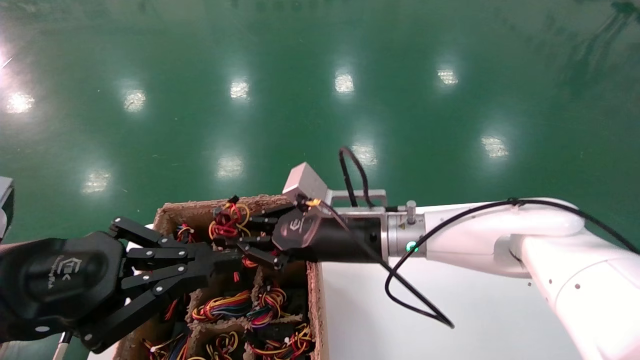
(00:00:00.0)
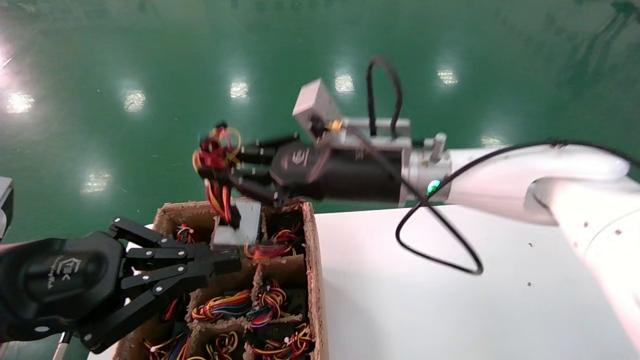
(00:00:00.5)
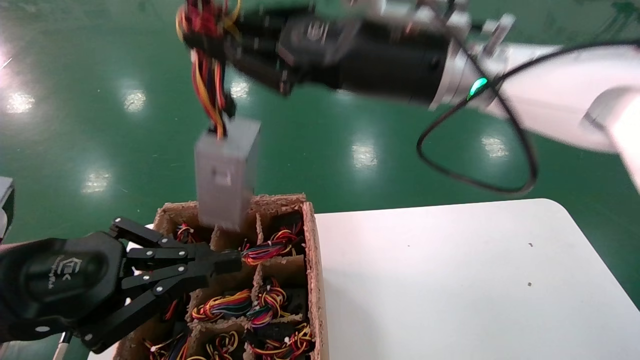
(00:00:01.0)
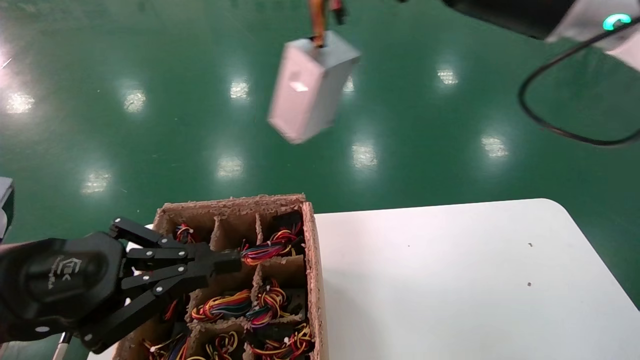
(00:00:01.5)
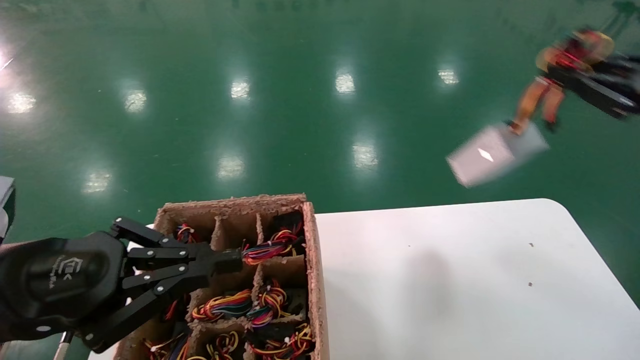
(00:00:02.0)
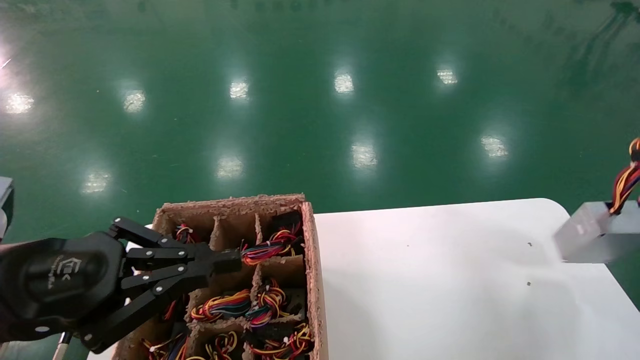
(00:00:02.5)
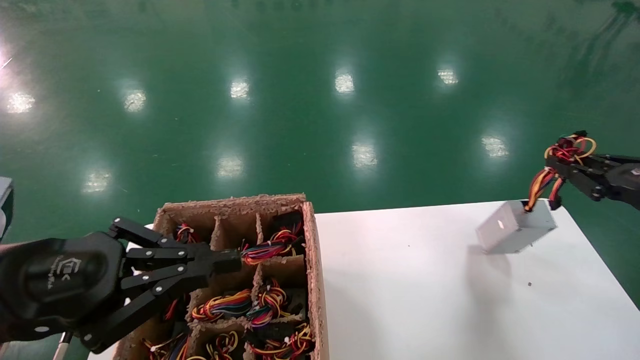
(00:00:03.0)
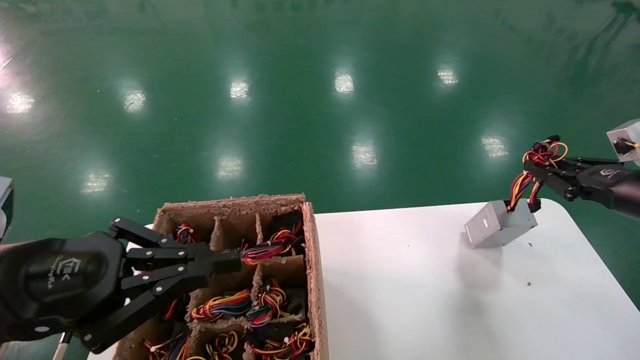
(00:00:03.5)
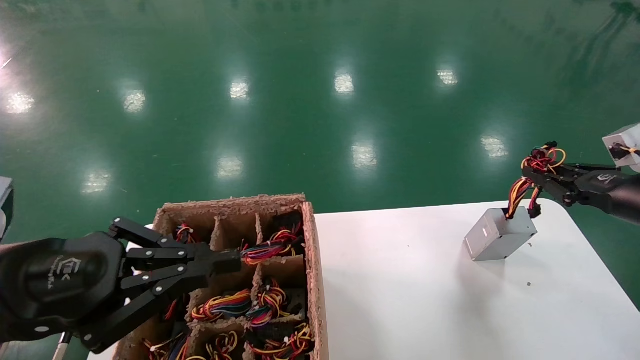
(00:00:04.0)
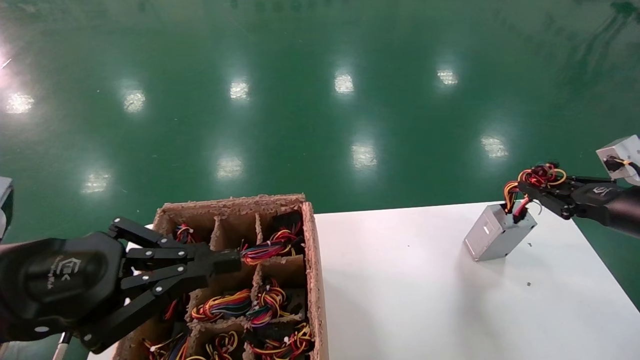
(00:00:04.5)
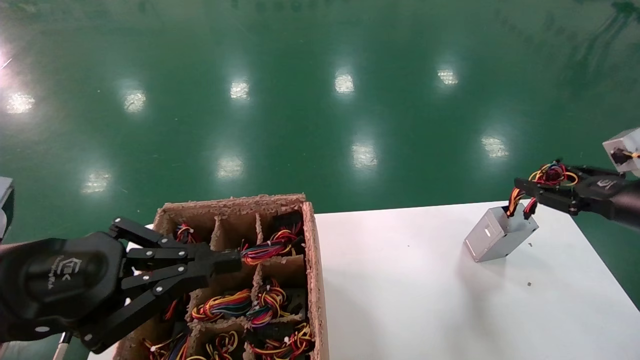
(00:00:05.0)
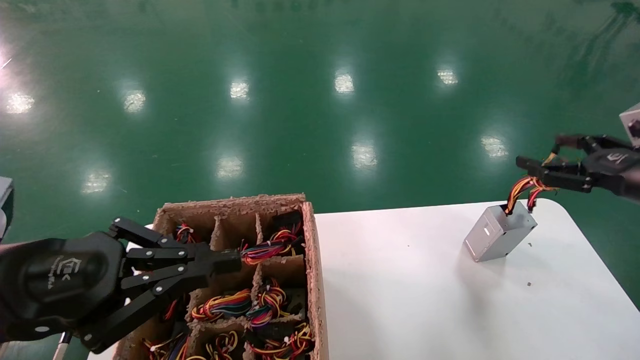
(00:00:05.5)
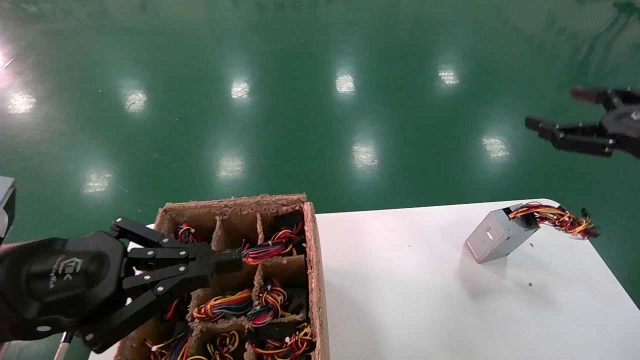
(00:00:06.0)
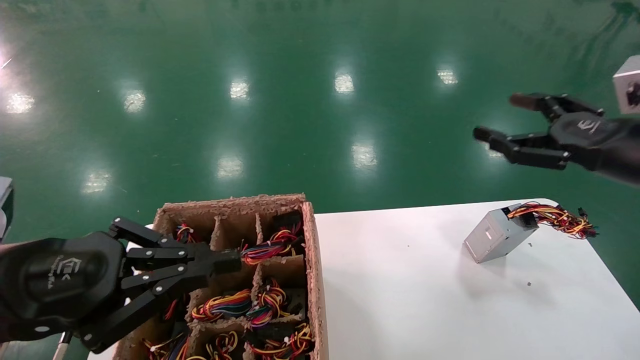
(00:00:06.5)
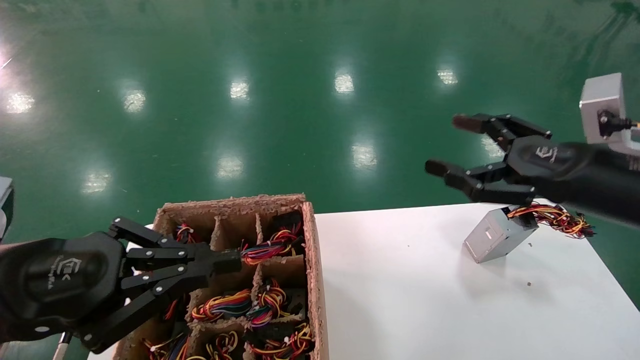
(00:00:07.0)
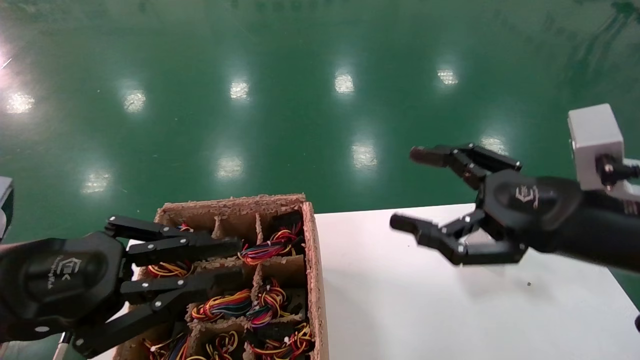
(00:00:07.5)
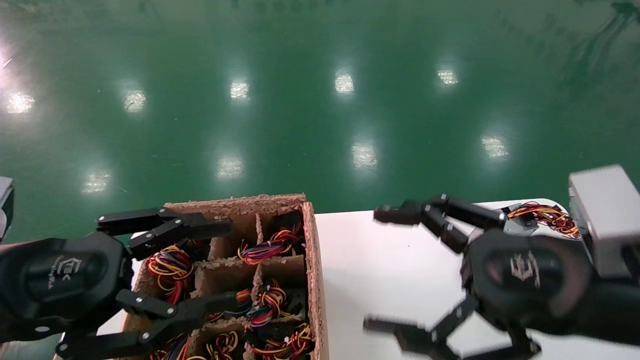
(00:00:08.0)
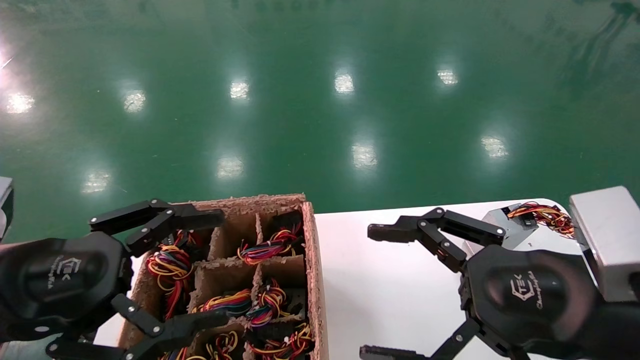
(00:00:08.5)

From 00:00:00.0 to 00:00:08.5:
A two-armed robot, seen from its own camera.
Step, from 00:00:00.0 to 00:00:04.5: Place the main unit power supply in the designated area.
From 00:00:00.0 to 00:00:02.0: The right gripper heads to the right and upward, covering approximately 40 cm.
From 00:00:02.0 to 00:00:04.0: The right gripper goes some 15 cm downward and forward.
From 00:00:04.0 to 00:00:06.5: The right gripper shifts some 10 cm to the left and upward, and opens up.
From 00:00:06.5 to 00:00:08.5: The right gripper travels to the left and backward by roughly 20 cm, while the left gripper opens.

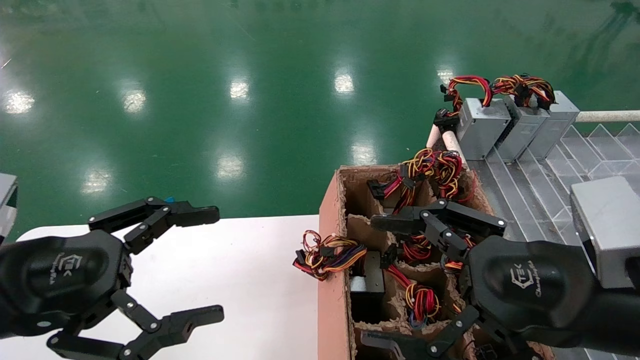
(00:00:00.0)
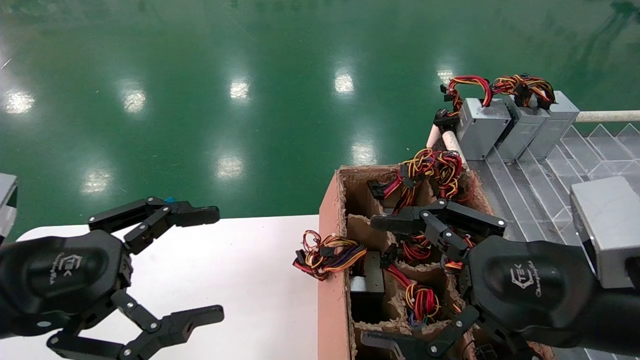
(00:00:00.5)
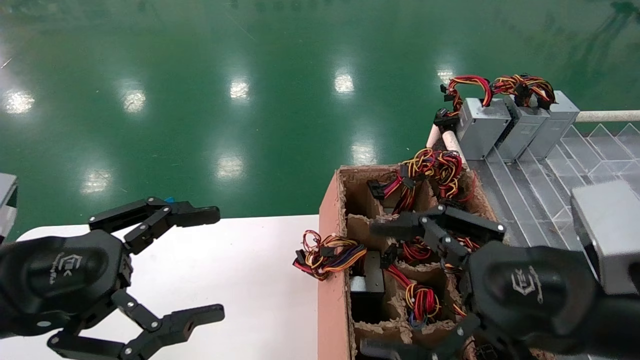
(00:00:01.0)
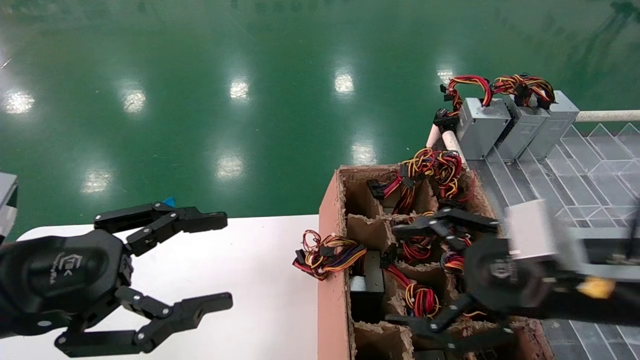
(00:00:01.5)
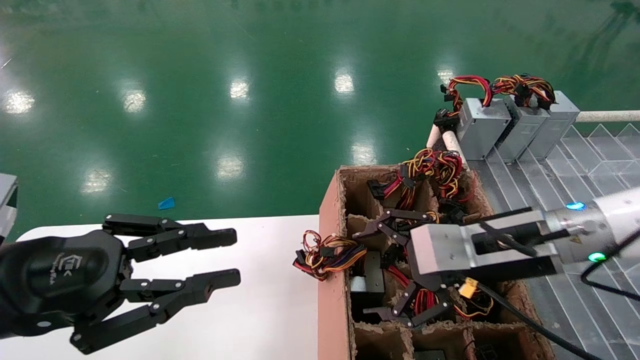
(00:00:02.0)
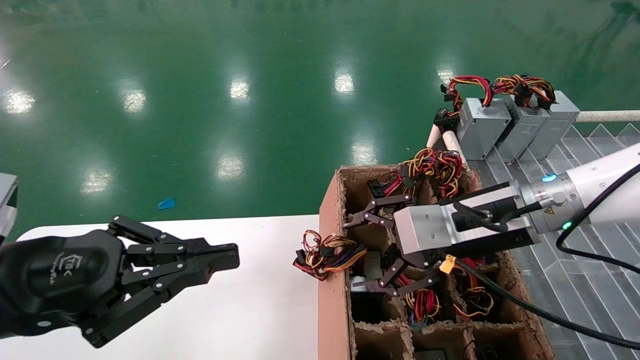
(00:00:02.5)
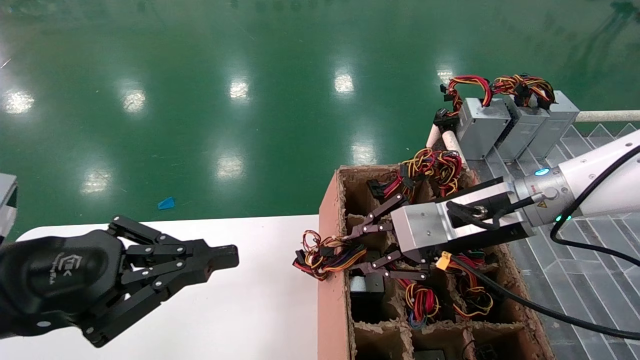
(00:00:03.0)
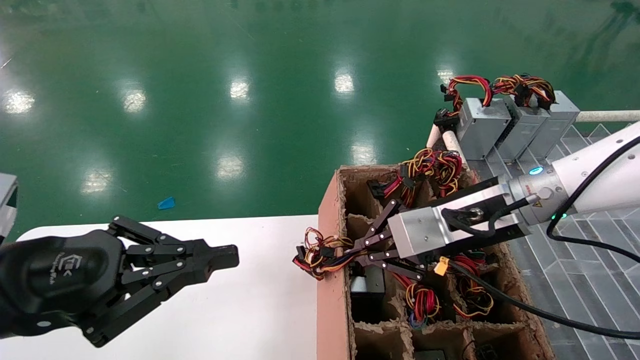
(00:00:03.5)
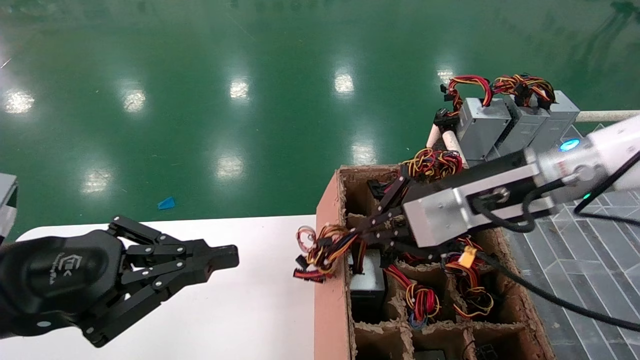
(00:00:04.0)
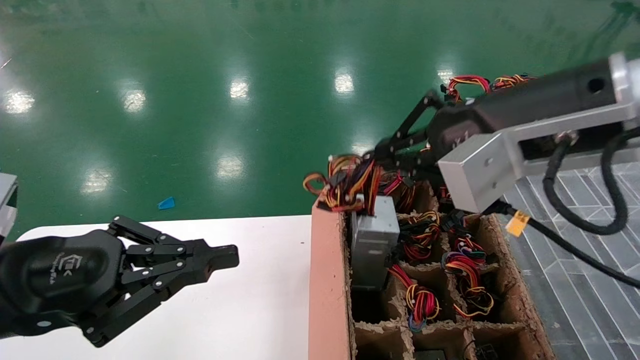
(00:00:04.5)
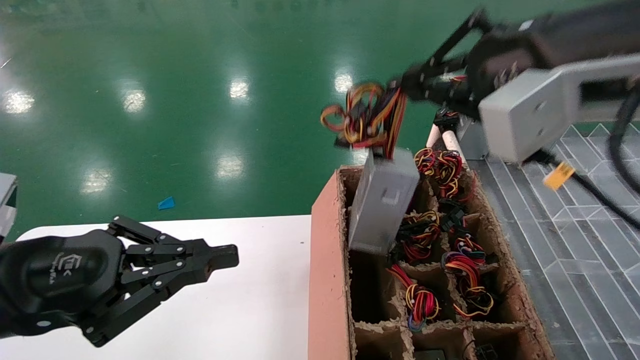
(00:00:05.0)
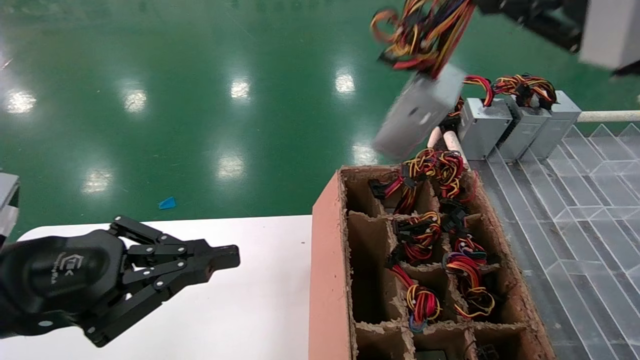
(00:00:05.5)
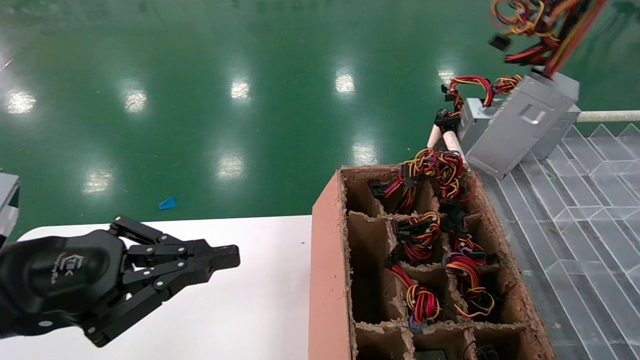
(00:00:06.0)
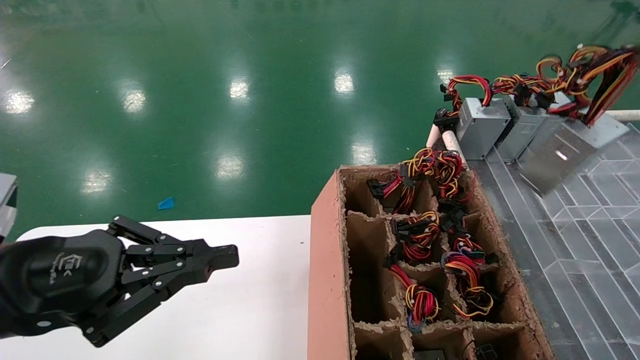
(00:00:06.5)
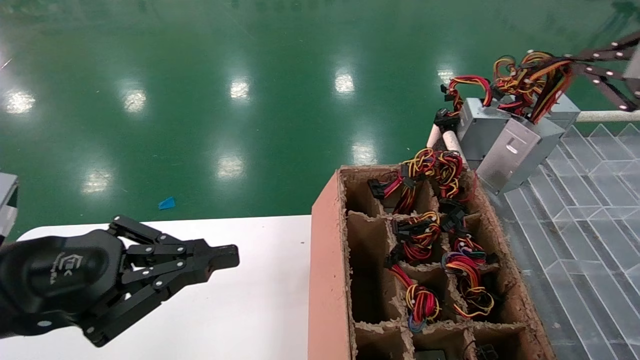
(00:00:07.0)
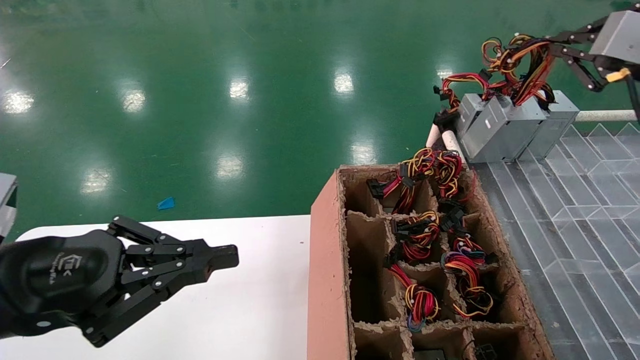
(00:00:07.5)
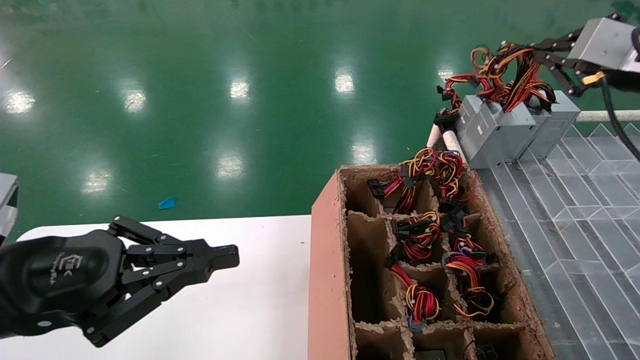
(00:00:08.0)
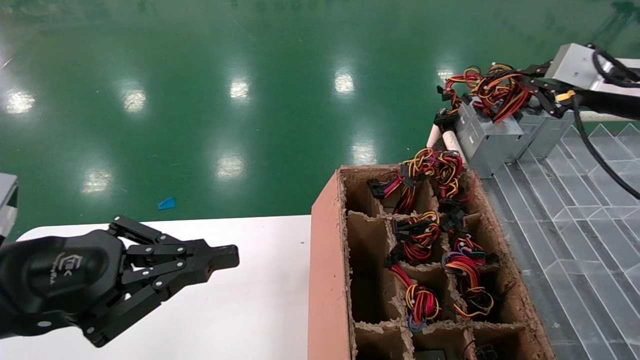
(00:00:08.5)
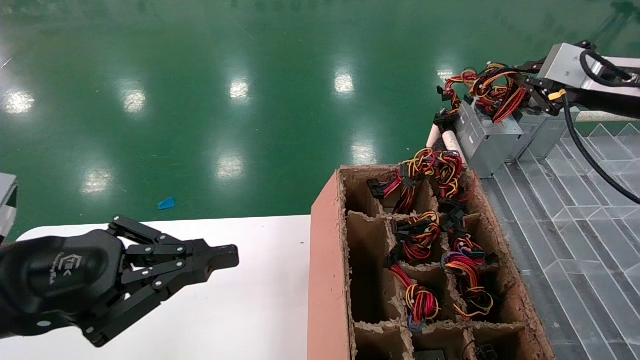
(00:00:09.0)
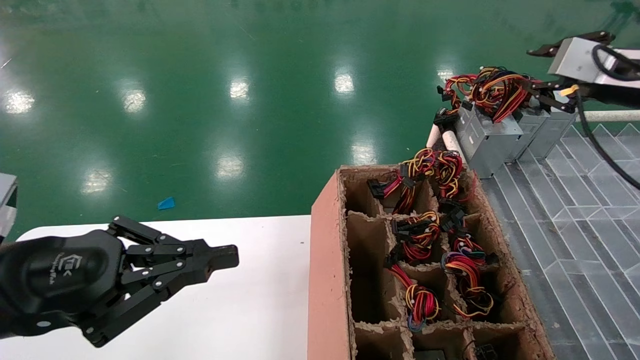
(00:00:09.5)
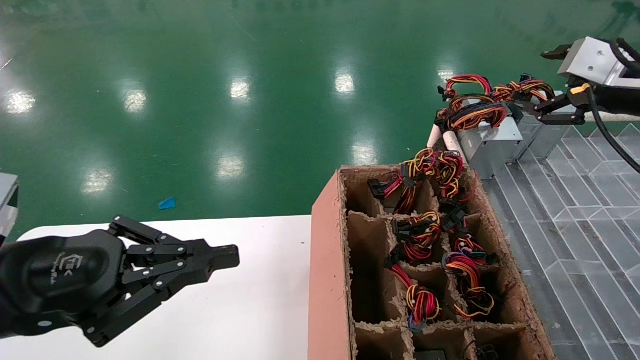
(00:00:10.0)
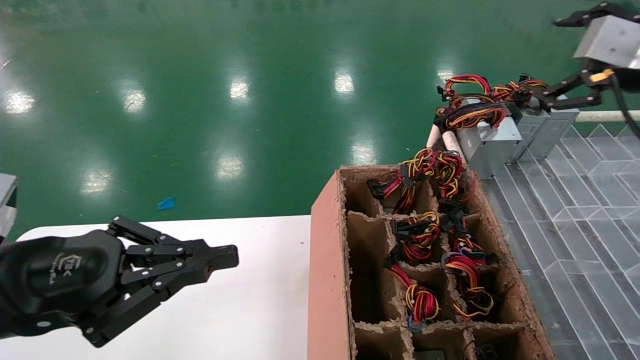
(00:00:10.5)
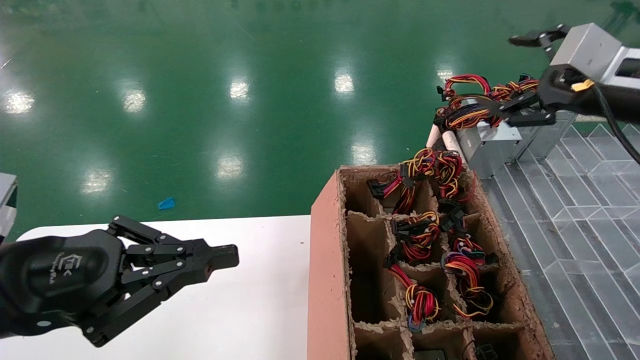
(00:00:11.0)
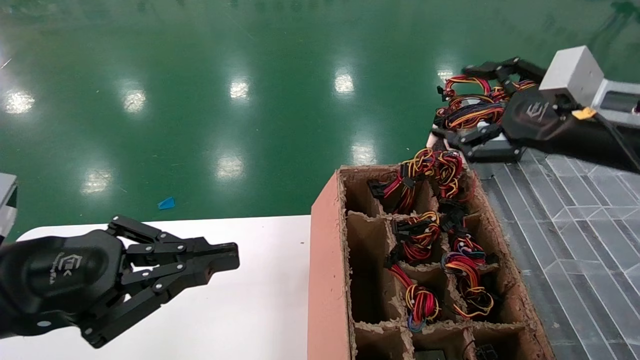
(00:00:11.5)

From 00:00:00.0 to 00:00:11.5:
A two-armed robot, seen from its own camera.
Step, from 00:00:01.5 to 00:00:03.5: Grab the main unit power supply from the containment box.
Step, from 00:00:04.0 to 00:00:09.5: Place the main unit power supply in the designated area.
From 00:00:00.0 to 00:00:02.0: The left gripper closes up; the right gripper is displaced forward by some 10 cm.
From 00:00:02.0 to 00:00:04.0: The right gripper heads upward, covering about 10 cm, and closes up, while the left gripper closes its fingers.
From 00:00:04.0 to 00:00:06.0: The right gripper is displaced to the right, upward and backward by some 25 cm.
From 00:00:06.0 to 00:00:07.5: The right gripper goes some 15 cm forward.
From 00:00:07.5 to 00:00:09.5: The right gripper changes place by approximately 5 cm.
From 00:00:09.5 to 00:00:11.5: The right gripper travels to the left, backward and downward by some 10 cm, and opens its fingers.
